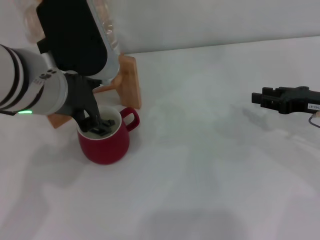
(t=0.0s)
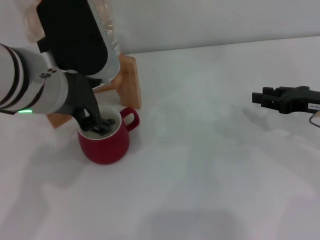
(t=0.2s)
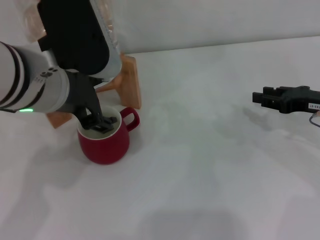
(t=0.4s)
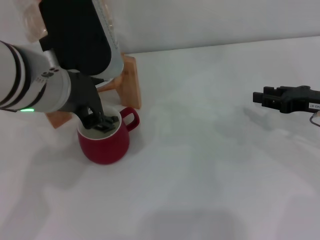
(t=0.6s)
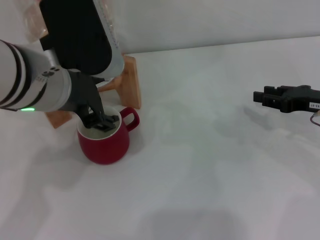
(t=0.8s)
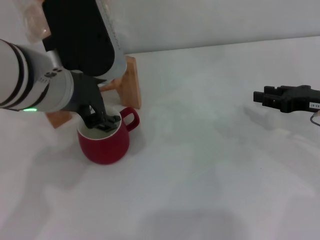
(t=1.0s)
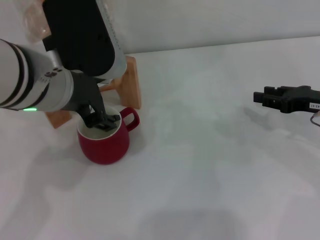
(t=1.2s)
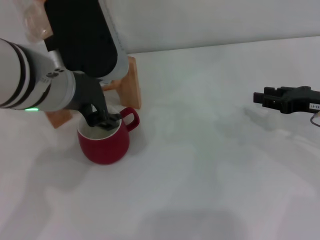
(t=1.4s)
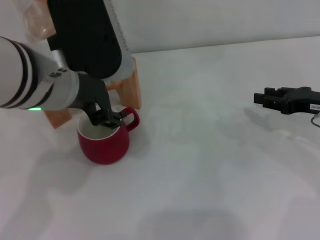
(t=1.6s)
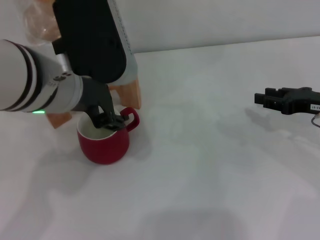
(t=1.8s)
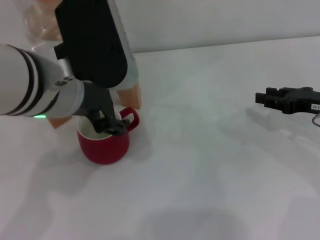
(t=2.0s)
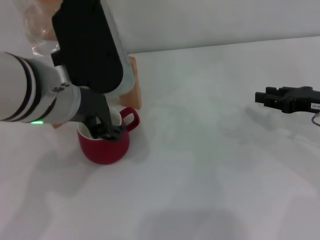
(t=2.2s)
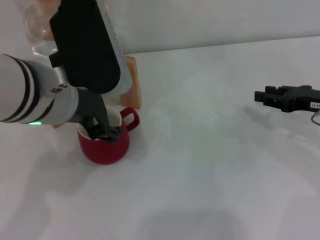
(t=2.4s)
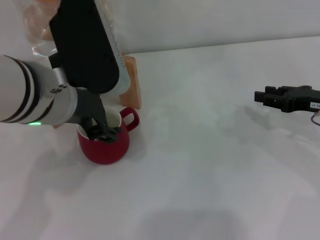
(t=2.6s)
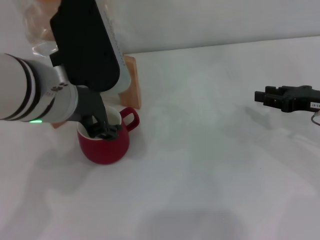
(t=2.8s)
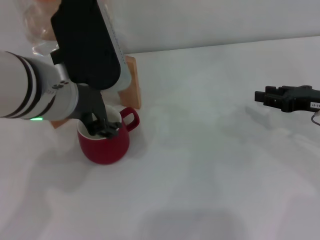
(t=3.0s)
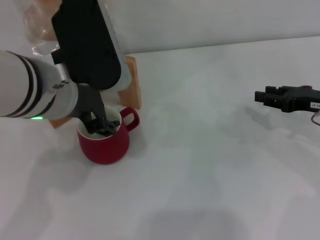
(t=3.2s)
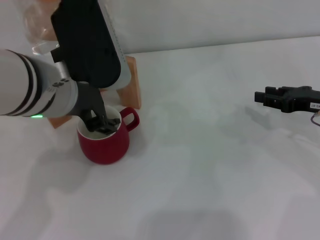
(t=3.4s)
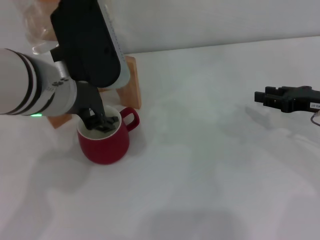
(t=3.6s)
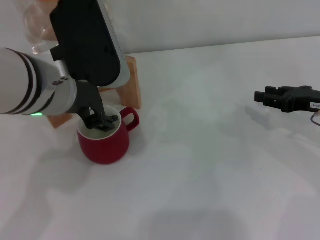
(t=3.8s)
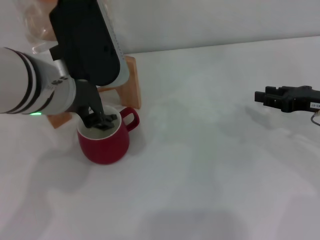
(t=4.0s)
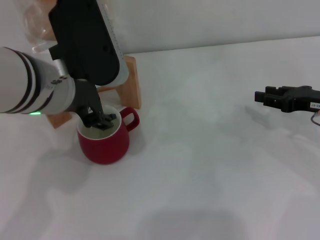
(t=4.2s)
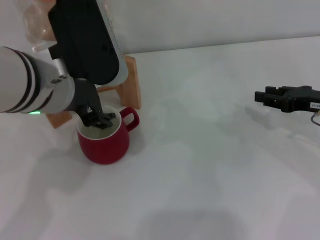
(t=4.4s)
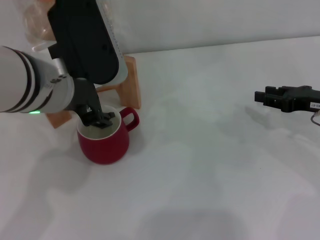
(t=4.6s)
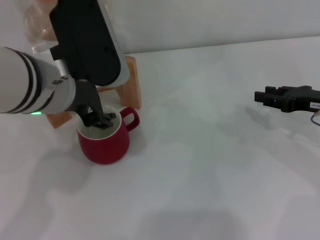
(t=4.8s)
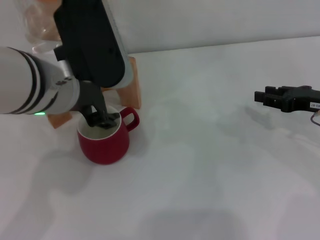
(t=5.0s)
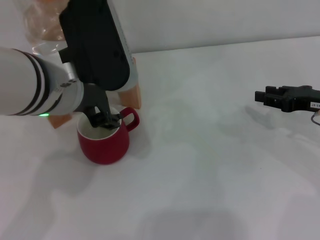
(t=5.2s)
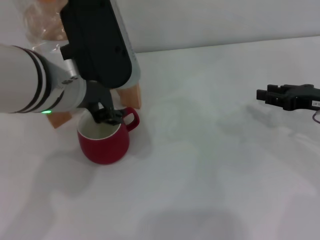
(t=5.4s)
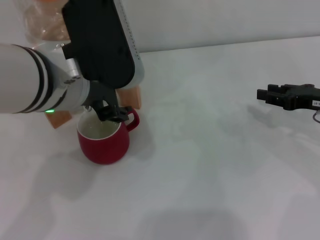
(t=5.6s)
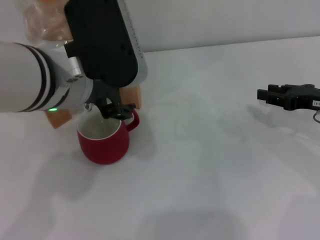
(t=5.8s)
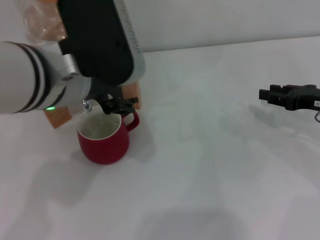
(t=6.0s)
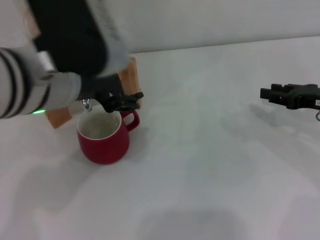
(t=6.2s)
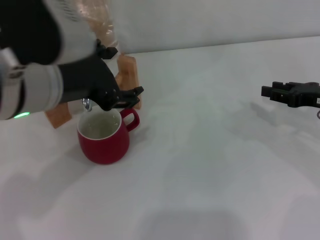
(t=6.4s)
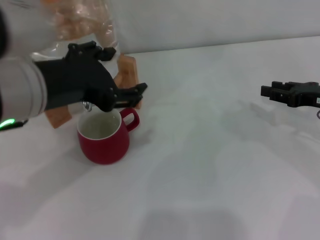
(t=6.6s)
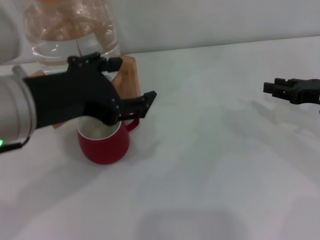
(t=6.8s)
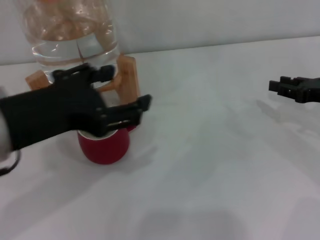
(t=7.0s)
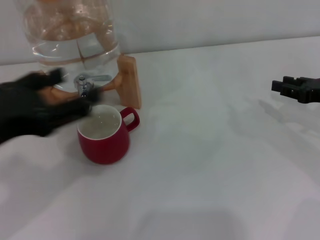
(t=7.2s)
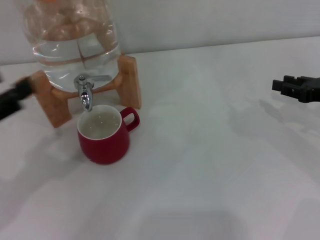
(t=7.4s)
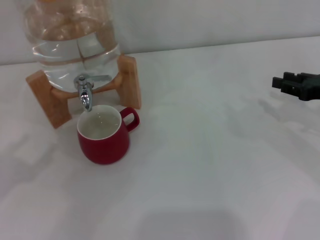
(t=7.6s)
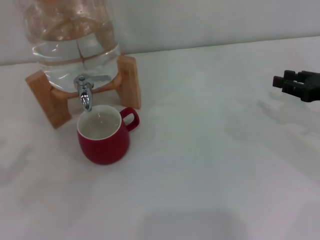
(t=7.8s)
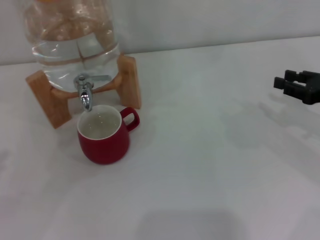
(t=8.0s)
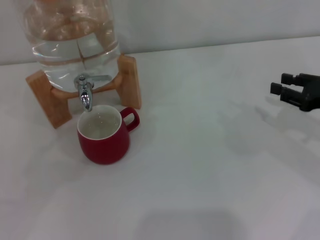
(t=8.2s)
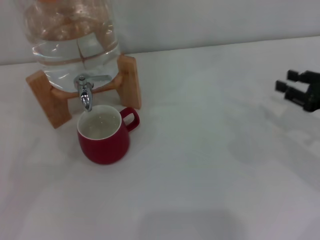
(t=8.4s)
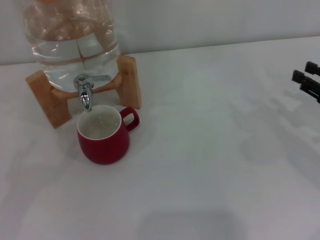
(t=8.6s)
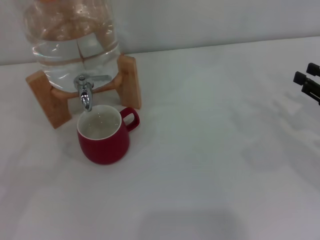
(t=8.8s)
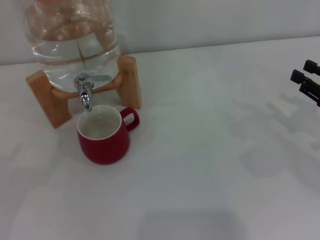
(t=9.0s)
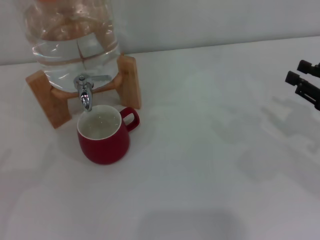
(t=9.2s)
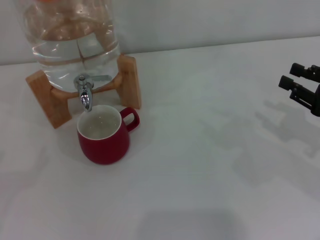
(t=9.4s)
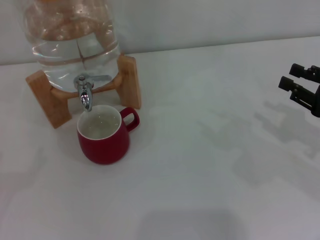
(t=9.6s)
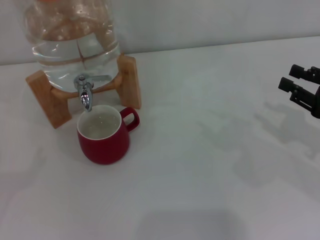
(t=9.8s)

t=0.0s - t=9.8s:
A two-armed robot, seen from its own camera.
Task of the whole recording: the right gripper pick up the red cup and place it horizontally under the faucet, the left gripper turn on the faucet to fill the cup, and then turn off the faucet.
Step, t=0.0s - t=7.0s: Close the dispenser valve with the left gripper.
t=0.0s - t=1.4s: Neither gripper changes place.
t=1.4s - t=2.8s: The grippers make only small movements.
t=2.8s - t=4.2s: Both grippers stay about where they are.
t=4.2s - t=5.6s: The grippers stay close to where they were, moving slightly.
t=5.6s - t=7.0s: The left gripper goes some 10 cm to the left and backward.
t=7.0s - t=8.4s: The left gripper travels to the left and downward by some 25 cm.
t=8.4s - t=9.8s: The grippers stay close to where they were, moving slightly.

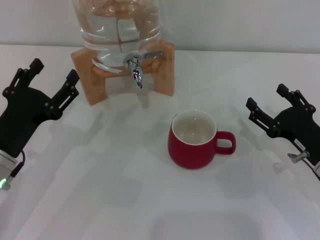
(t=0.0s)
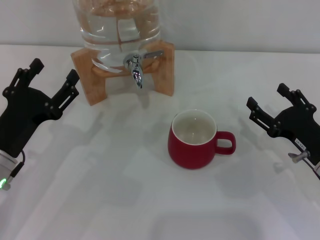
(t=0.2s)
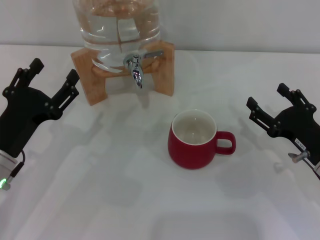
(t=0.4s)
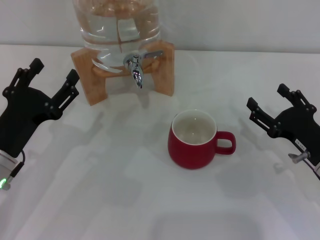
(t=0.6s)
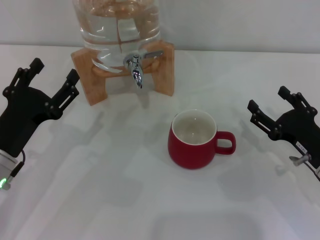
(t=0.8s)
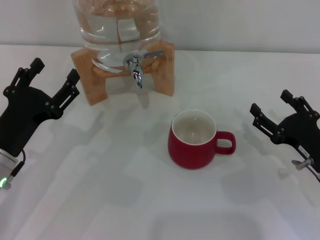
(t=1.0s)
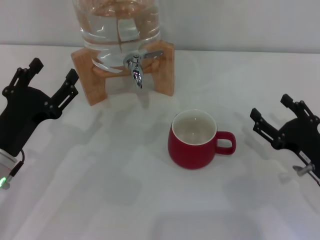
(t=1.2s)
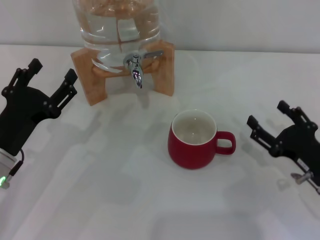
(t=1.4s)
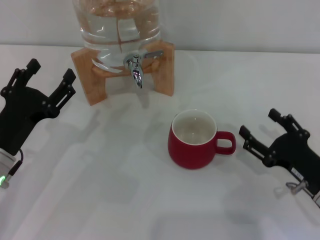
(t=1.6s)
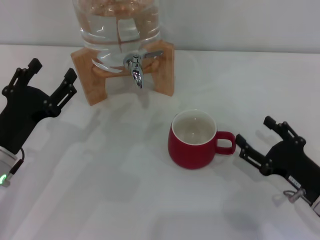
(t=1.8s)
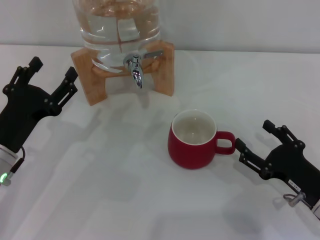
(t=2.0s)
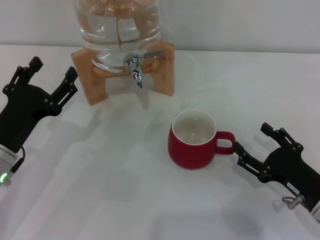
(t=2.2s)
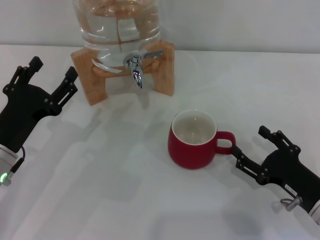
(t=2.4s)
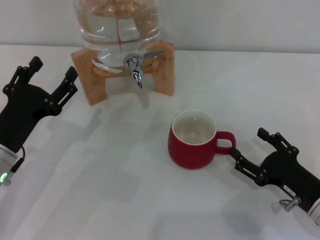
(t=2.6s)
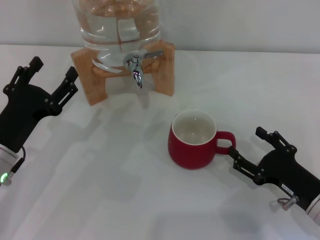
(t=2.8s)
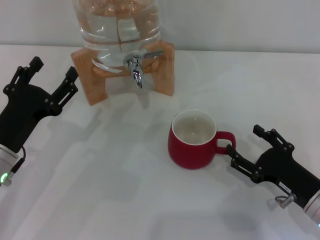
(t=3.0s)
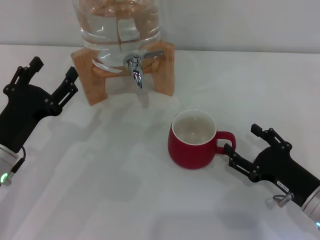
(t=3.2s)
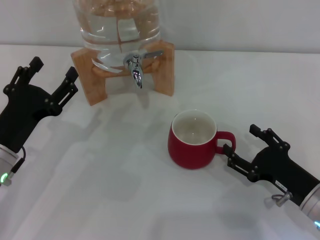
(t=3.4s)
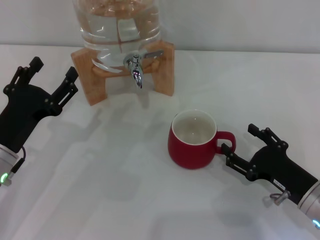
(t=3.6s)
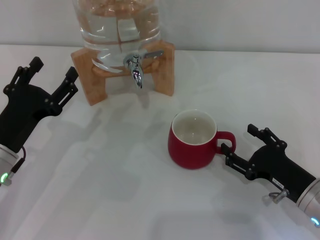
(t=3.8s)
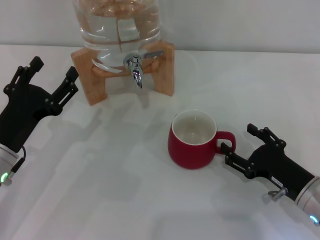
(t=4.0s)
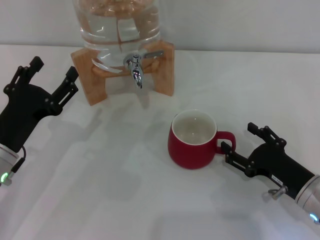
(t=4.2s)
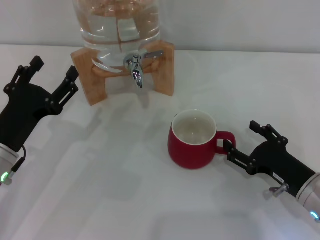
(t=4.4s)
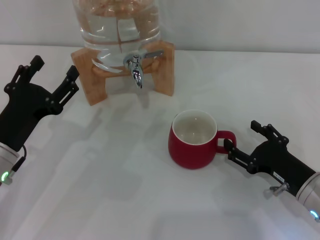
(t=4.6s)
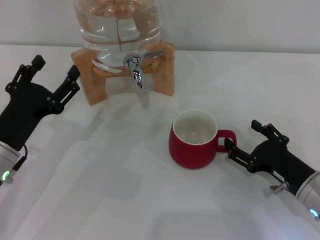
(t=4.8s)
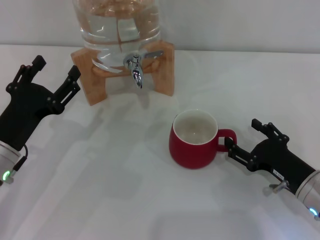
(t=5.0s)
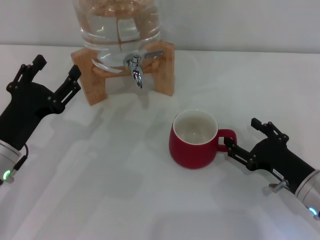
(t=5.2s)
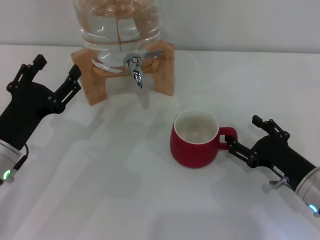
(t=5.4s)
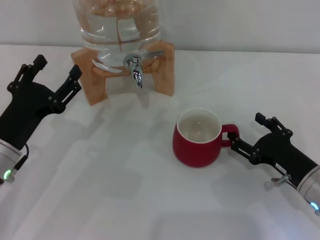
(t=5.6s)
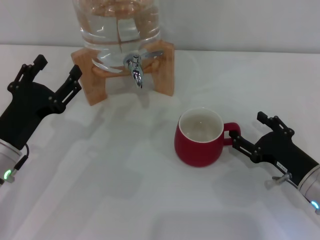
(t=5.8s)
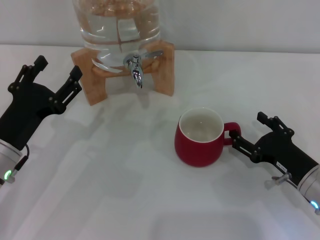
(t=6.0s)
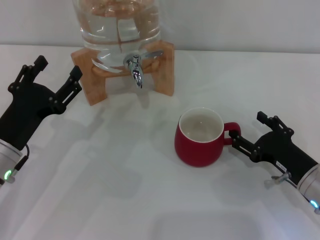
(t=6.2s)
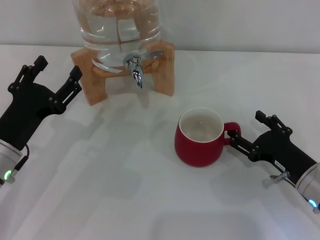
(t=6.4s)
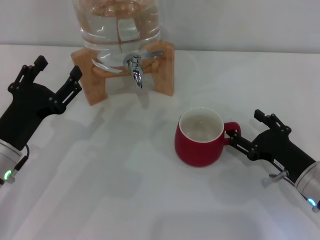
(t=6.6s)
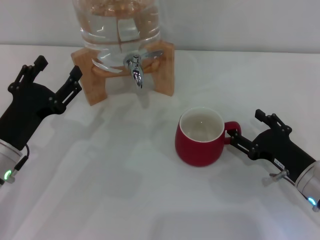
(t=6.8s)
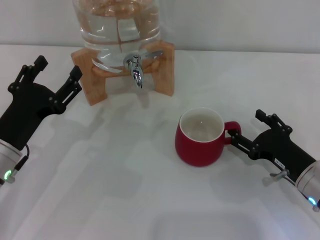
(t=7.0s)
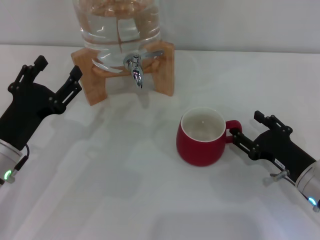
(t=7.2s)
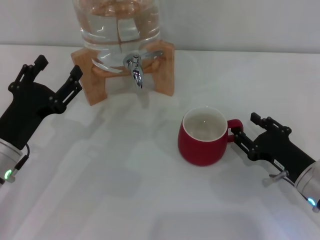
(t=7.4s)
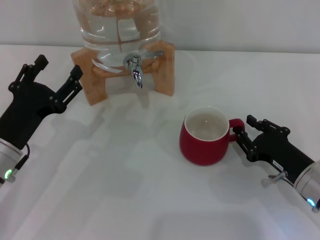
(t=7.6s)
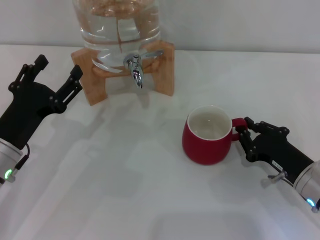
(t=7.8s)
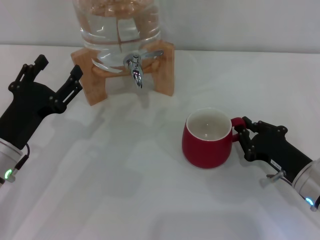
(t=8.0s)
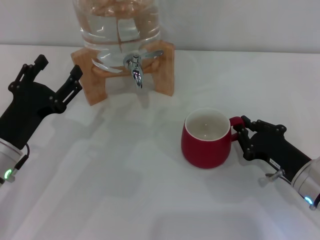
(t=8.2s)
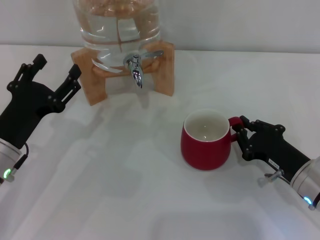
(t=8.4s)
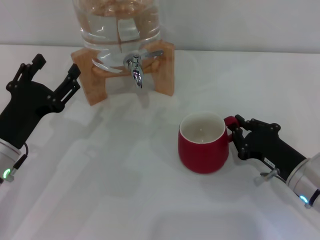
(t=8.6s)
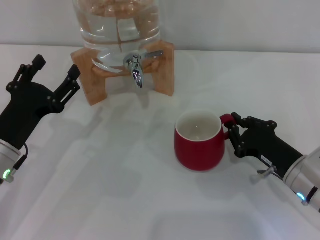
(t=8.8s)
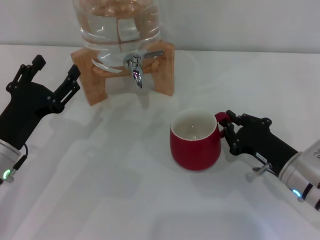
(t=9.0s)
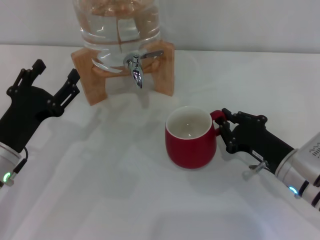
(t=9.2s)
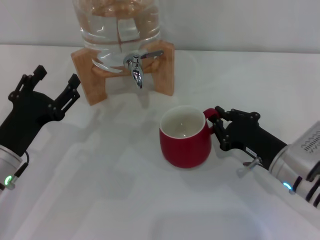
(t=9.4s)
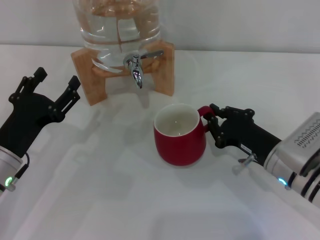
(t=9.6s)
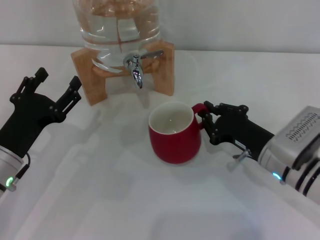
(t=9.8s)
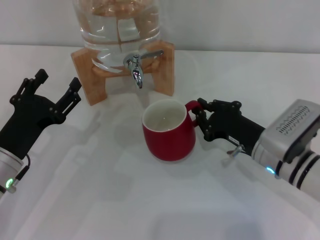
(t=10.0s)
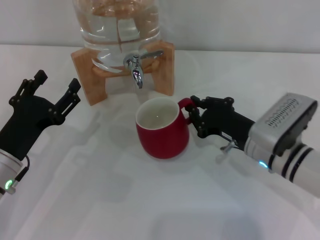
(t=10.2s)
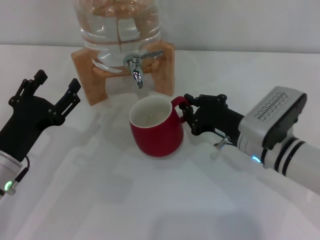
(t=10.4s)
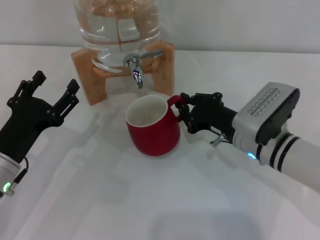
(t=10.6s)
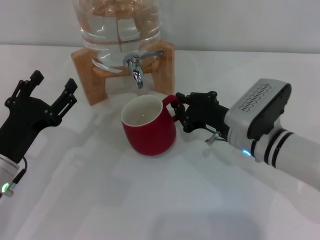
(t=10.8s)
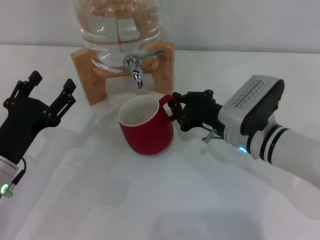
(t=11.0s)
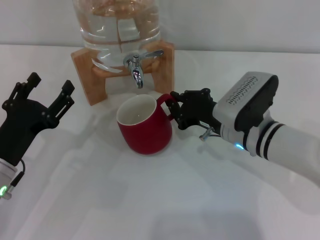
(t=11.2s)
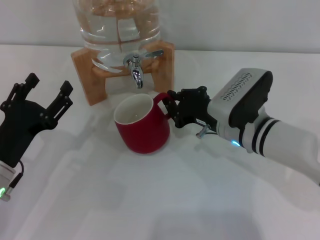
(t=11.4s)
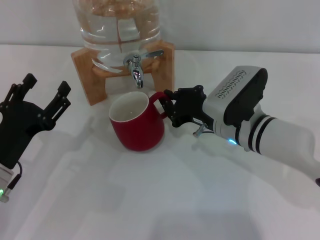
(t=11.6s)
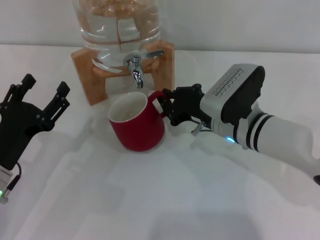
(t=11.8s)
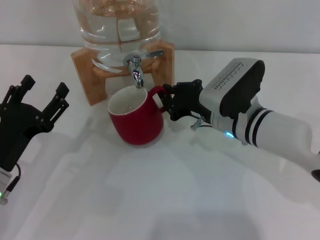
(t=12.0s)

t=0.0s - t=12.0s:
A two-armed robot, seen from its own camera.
Task of the whole recording: the right gripper pick up the red cup and place it horizontally under the faucet, the left gripper turn on the faucet to fill the cup, and then turn off the faucet.
t=0.0s - t=4.4s: The grippers stay close to where they were, moving slightly.
t=4.4s - t=6.0s: The two grippers keep their place.
t=6.0s - t=7.6s: Both grippers stay put.
t=7.6s - t=9.0s: The right gripper closes up.
t=9.0s - t=10.4s: The right gripper is displaced to the left by approximately 5 cm.
t=10.4s - t=12.0s: The right gripper shifts by about 5 cm.
